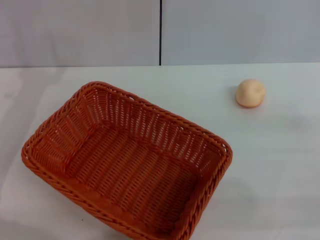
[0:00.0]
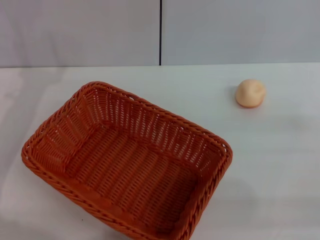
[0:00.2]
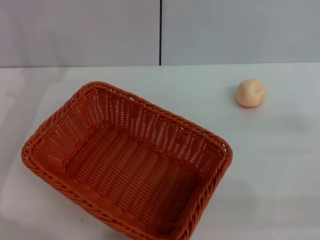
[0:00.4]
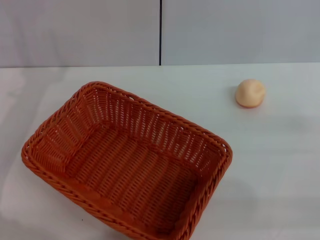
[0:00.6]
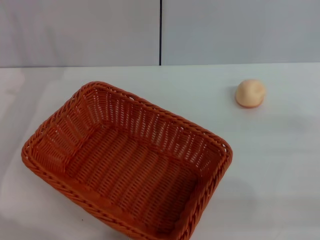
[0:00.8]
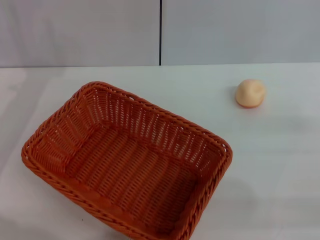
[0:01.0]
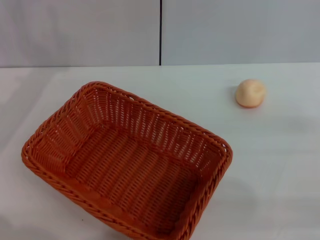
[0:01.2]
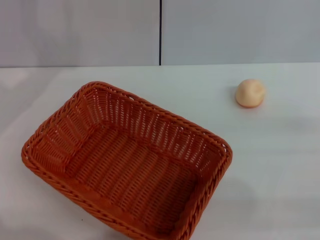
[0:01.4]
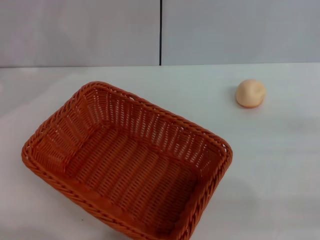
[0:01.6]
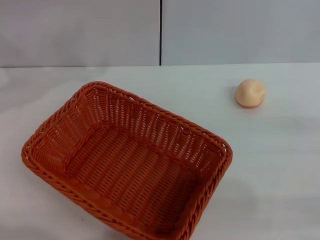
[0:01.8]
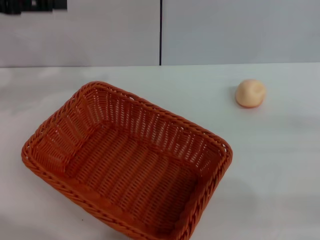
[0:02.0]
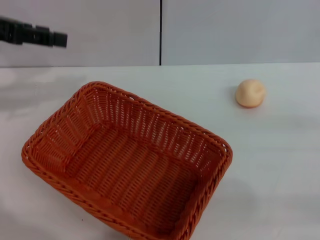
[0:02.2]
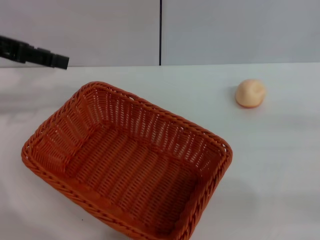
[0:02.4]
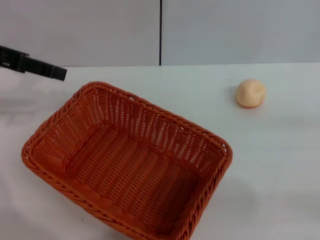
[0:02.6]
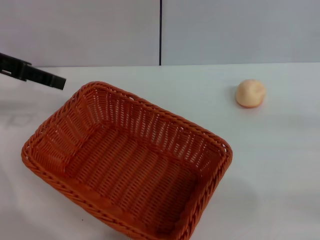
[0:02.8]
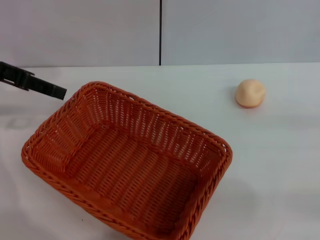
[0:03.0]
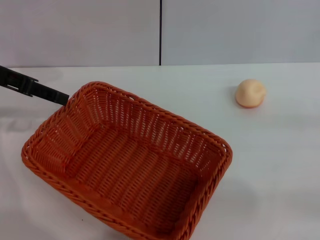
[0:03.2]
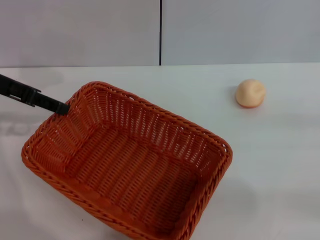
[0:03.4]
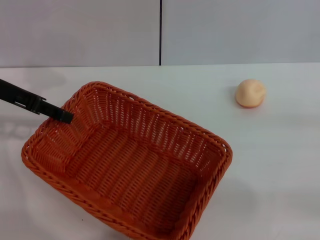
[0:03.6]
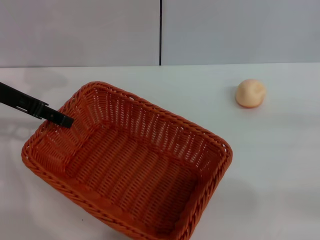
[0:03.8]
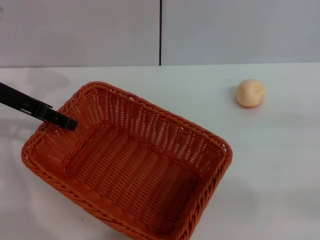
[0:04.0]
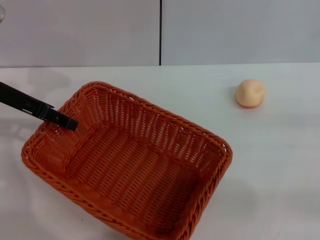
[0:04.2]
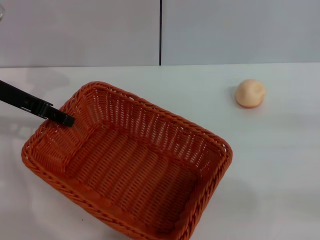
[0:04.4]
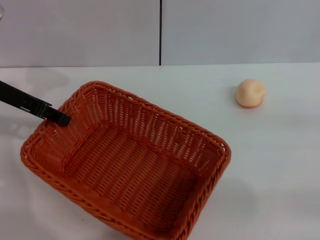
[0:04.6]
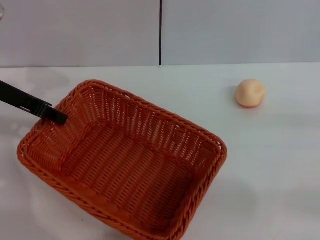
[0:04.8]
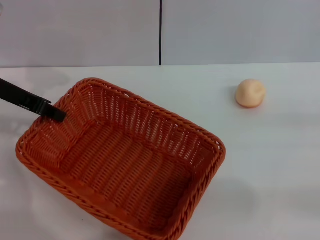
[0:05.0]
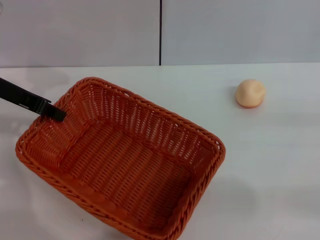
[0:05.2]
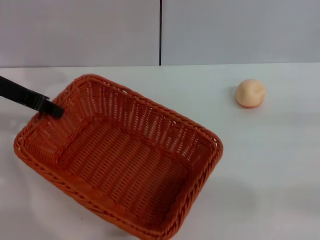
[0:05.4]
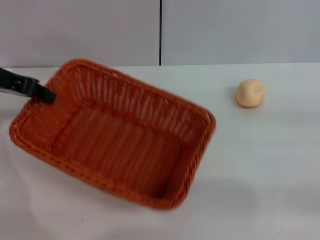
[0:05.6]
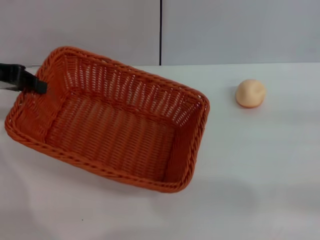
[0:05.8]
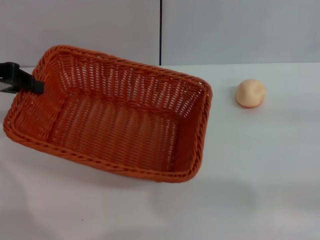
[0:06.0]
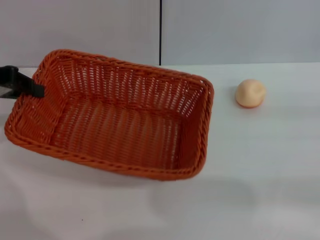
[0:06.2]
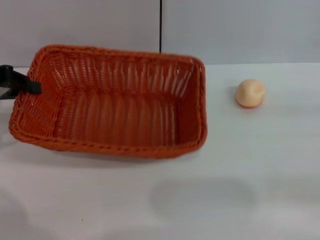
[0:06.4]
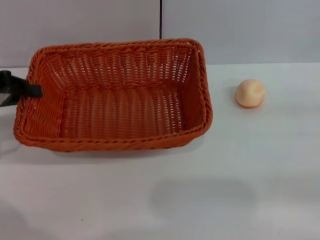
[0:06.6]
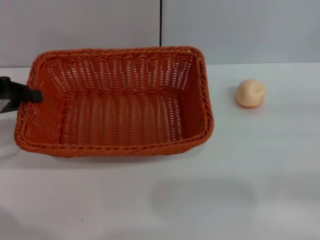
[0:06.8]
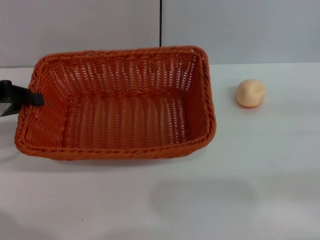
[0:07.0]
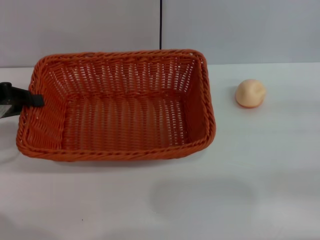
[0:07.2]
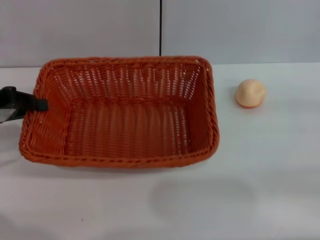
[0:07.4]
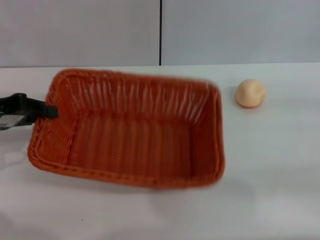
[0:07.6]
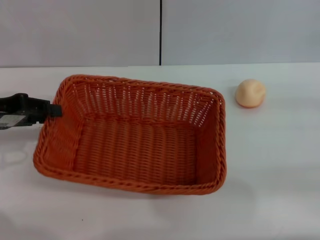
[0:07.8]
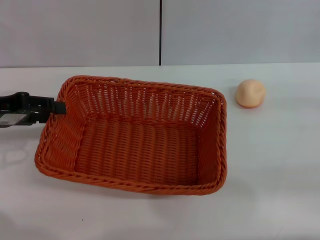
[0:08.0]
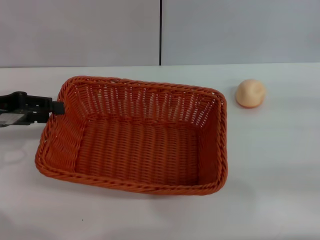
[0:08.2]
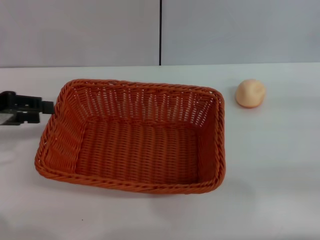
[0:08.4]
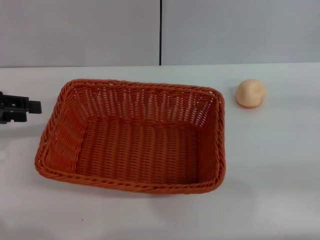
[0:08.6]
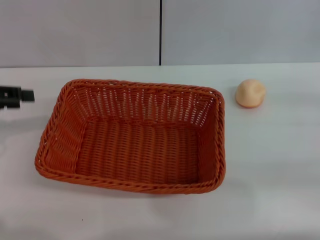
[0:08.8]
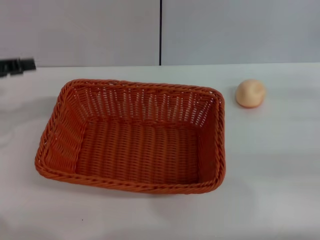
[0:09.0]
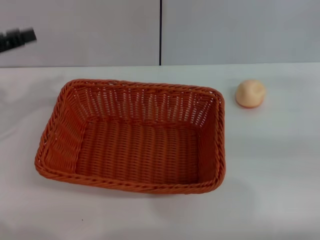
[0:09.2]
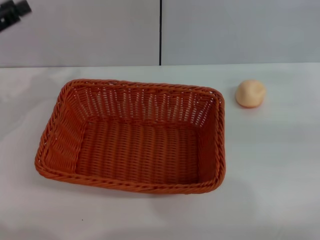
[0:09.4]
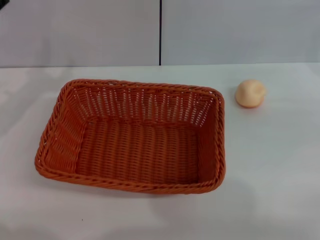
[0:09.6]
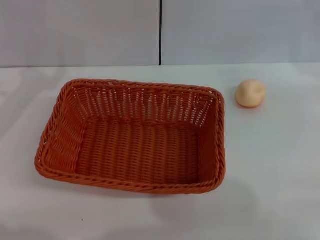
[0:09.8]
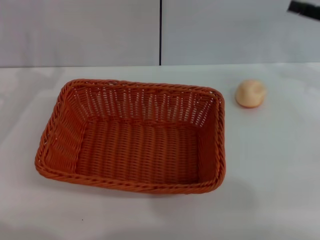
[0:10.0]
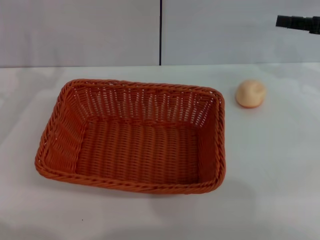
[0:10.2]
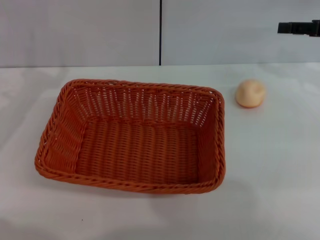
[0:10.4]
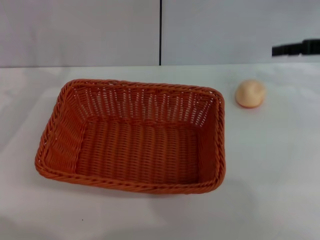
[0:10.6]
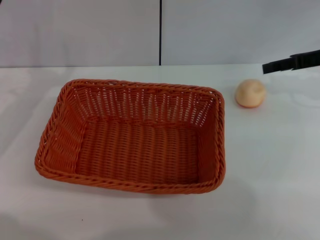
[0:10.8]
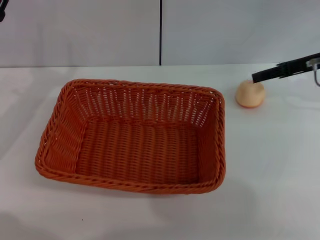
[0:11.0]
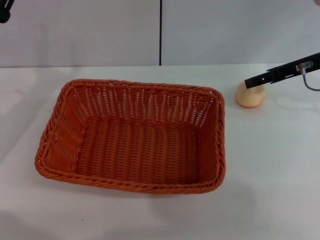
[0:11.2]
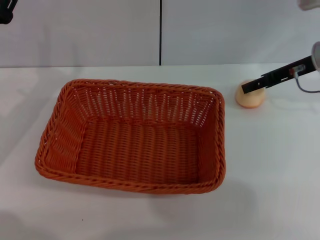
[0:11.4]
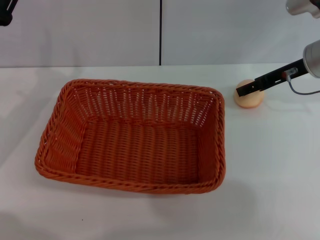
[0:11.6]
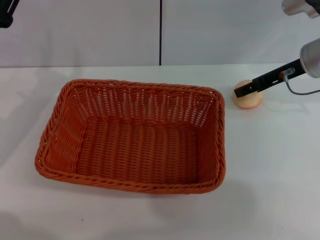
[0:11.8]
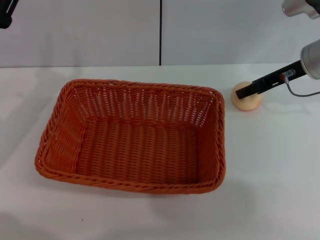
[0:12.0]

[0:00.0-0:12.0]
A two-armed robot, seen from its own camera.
Step, 0:00.0 to 0:08.6: Move the basket to the center of view with the left gripper.
0:03.0 to 0:04.4: The left gripper travels downward by approximately 5 cm.
0:04.4 to 0:06.0: The left gripper moves about 5 cm, and closes up.
0:06.0 to 0:07.6: The left gripper is displaced downward and backward by some 5 cm.
0:07.6 to 0:09.0: The left gripper opens its fingers.
0:09.0 to 0:10.4: The right gripper heads forward and upward, covering about 15 cm. The left gripper goes approximately 5 cm downward.
0:10.4 to 0:12.0: The right gripper travels to the left by about 10 cm.

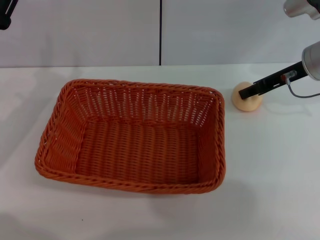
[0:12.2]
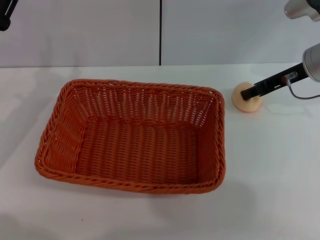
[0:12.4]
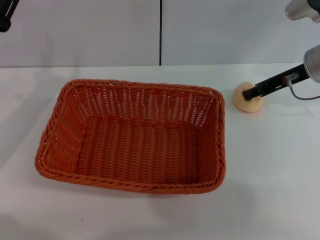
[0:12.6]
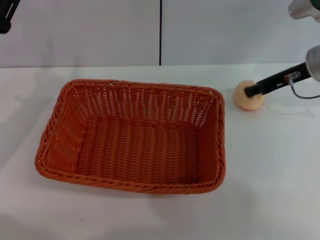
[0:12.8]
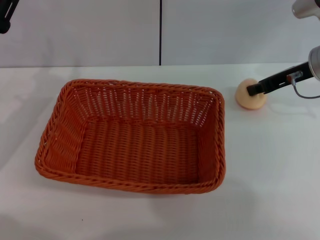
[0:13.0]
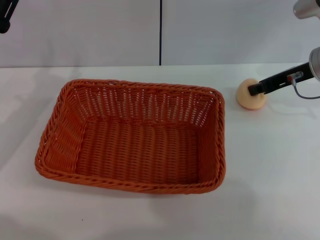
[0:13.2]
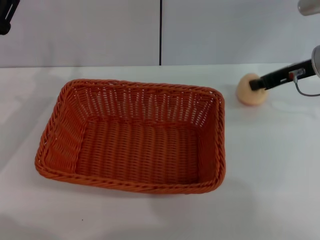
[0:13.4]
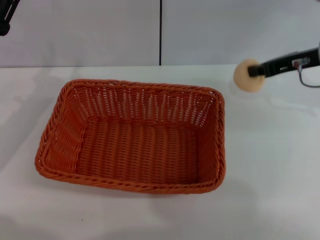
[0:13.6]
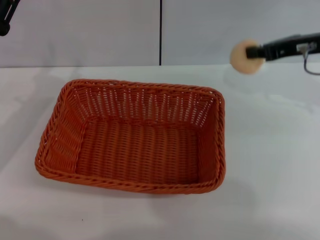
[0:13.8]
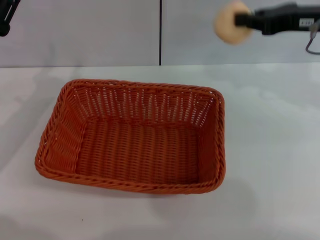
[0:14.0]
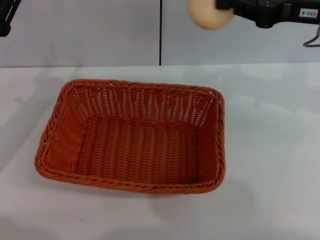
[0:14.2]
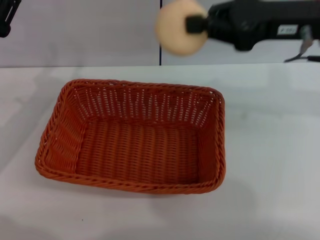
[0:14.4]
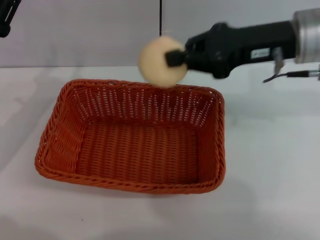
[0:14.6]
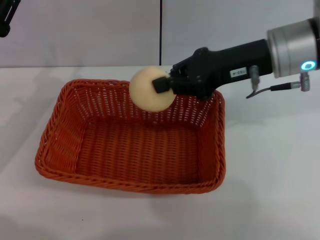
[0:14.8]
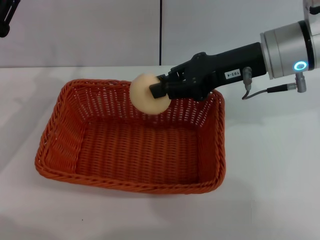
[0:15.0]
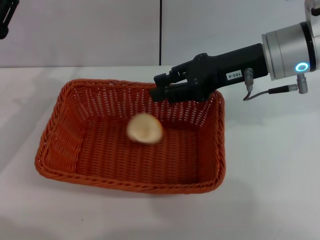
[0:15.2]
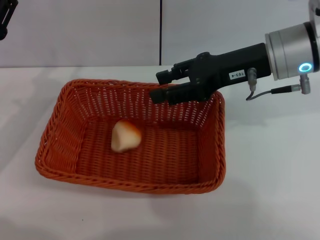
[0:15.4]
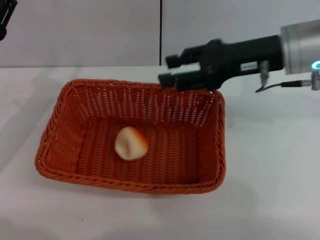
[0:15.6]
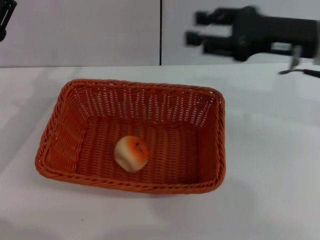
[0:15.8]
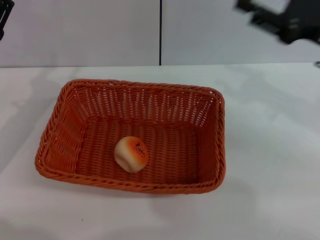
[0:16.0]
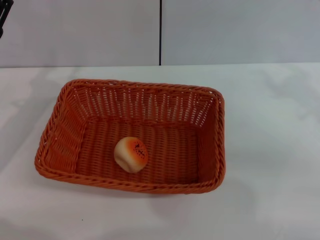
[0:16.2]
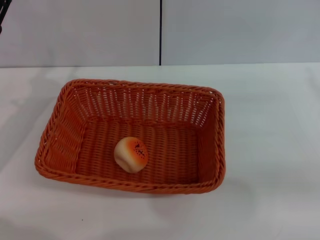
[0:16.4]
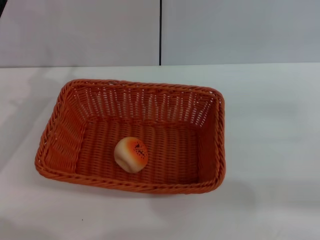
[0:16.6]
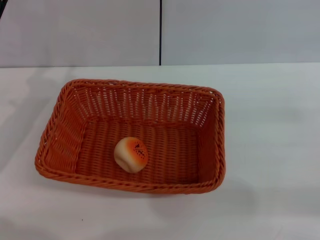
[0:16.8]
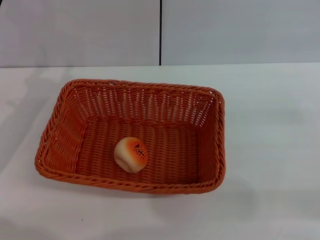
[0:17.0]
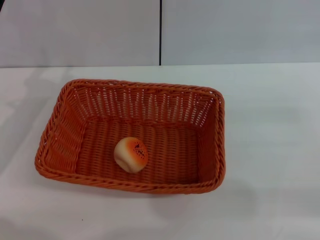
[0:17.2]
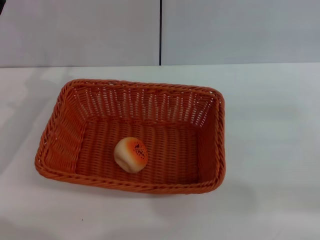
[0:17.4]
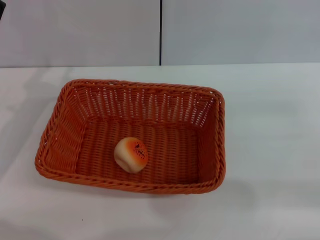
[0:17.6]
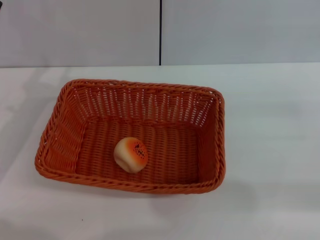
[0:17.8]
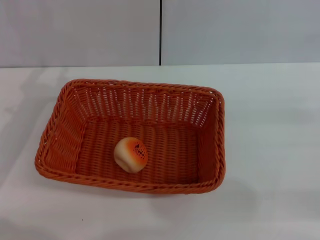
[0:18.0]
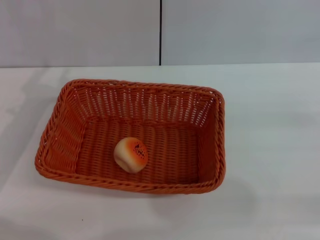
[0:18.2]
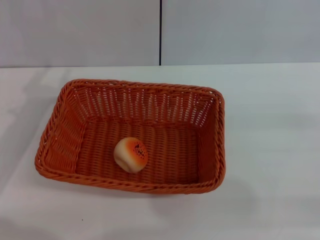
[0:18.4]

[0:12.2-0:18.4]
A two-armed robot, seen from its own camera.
Step, 0:14.0 to 0:15.6: Place the egg yolk pastry into the basket with the right gripper.
0:12.2 to 0:13.8: The right gripper goes roughly 5 cm upward, and closes its fingers.
0:13.8 to 0:15.4: The right gripper heads to the left, covering approximately 10 cm, and opens up.
0:15.4 to 0:16.8: The right gripper shifts about 25 cm to the right, backward and downward, and opens its fingers.
